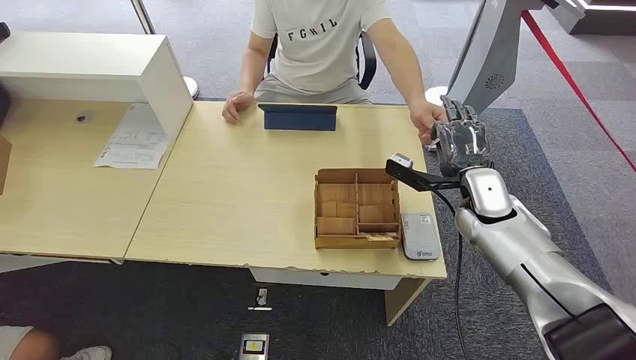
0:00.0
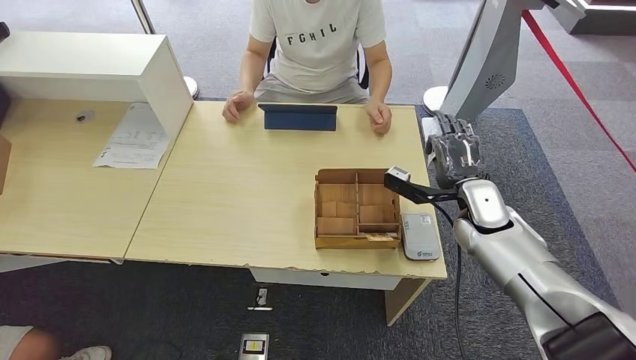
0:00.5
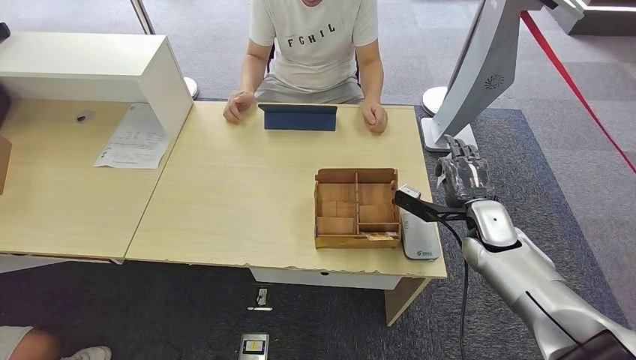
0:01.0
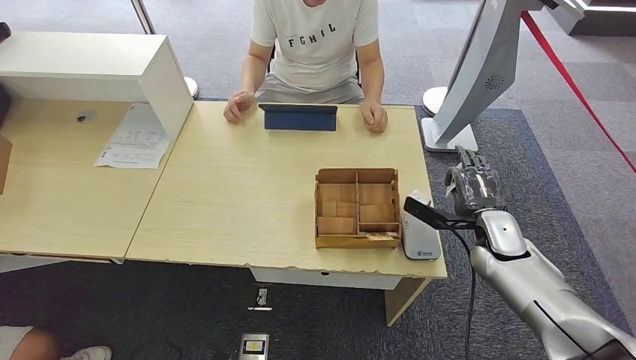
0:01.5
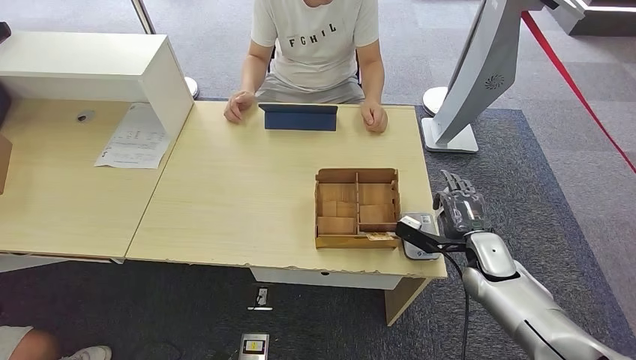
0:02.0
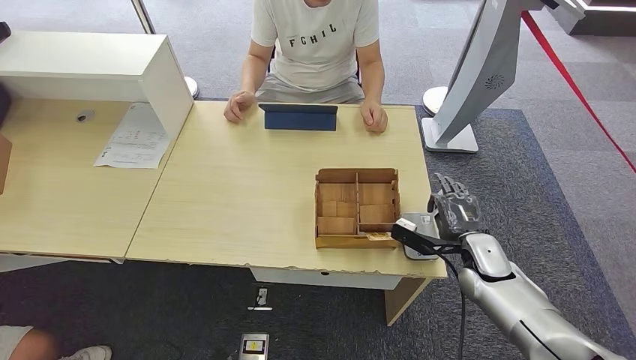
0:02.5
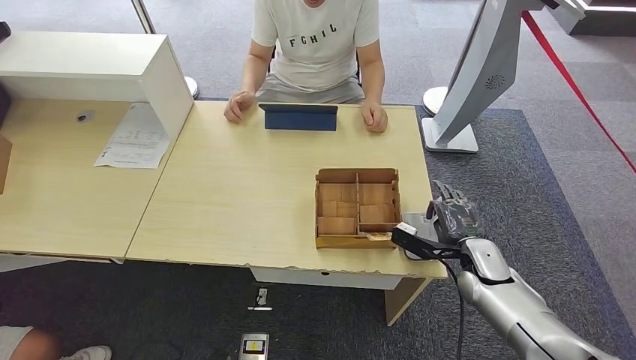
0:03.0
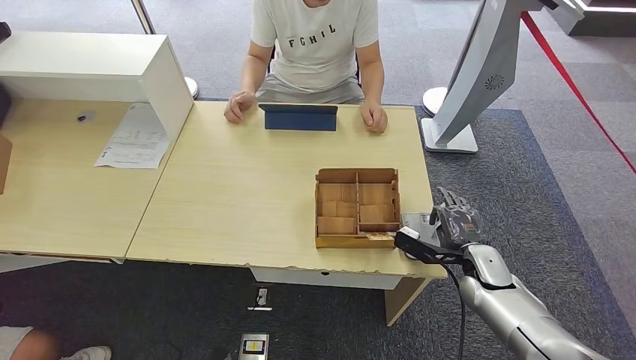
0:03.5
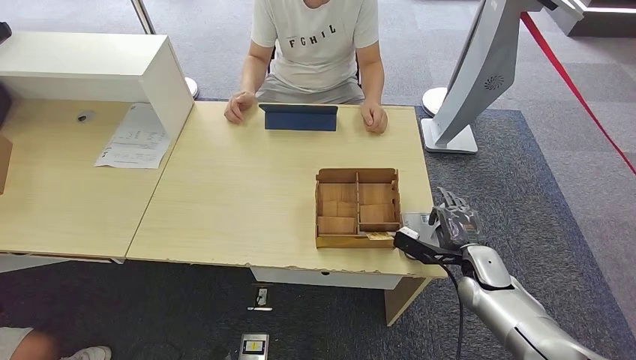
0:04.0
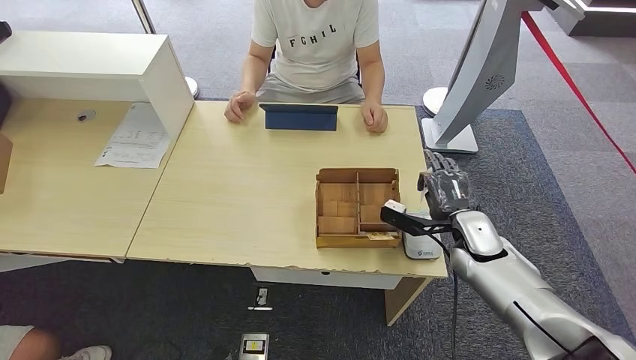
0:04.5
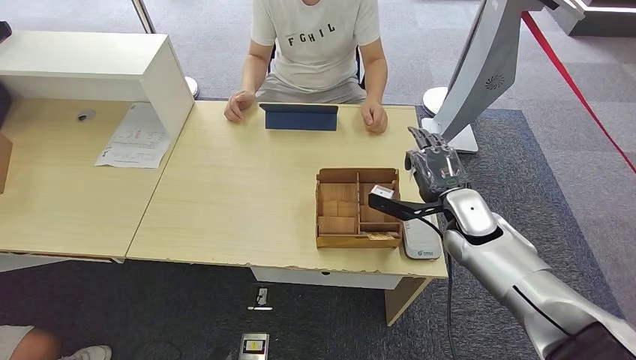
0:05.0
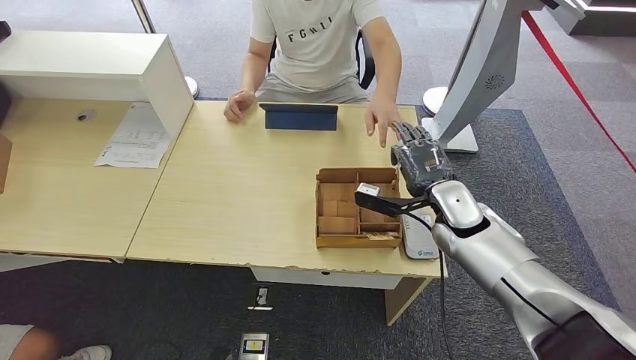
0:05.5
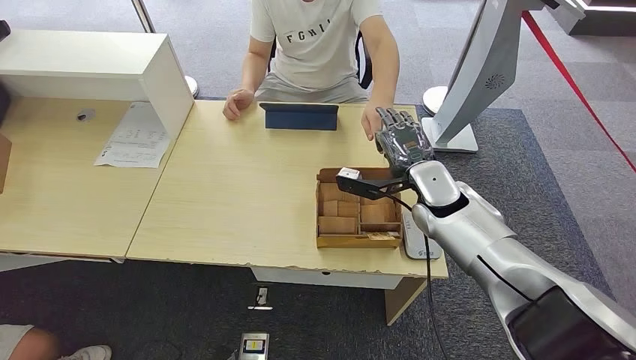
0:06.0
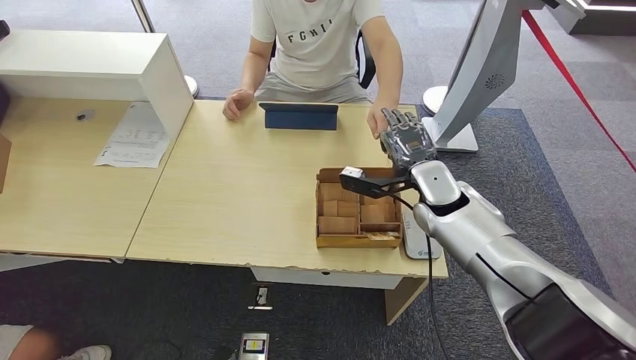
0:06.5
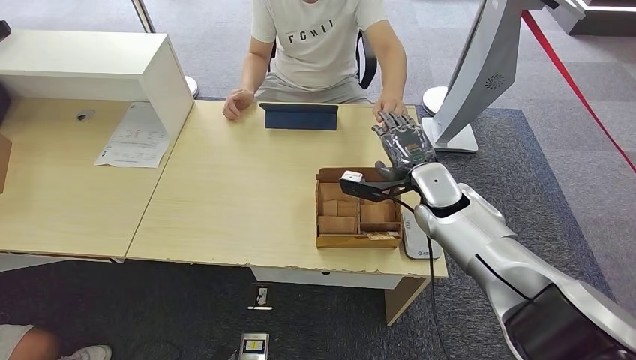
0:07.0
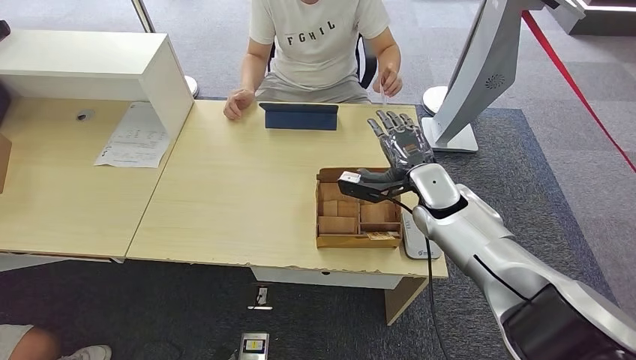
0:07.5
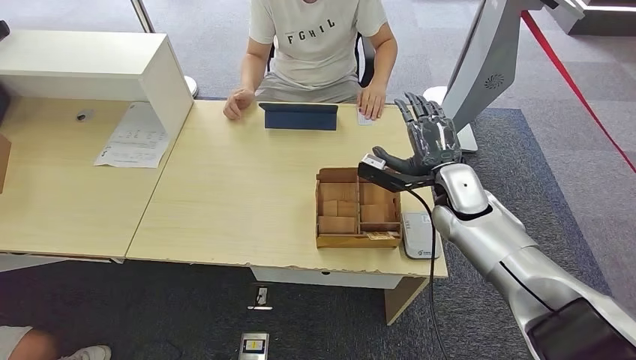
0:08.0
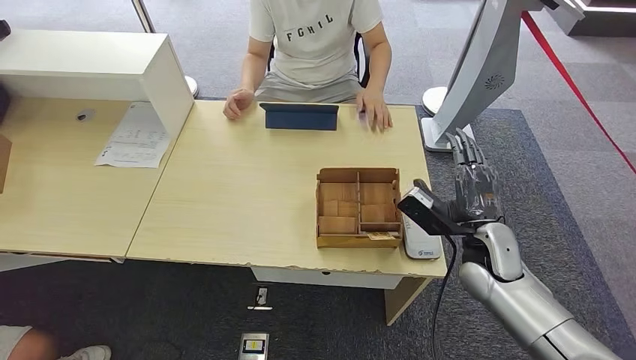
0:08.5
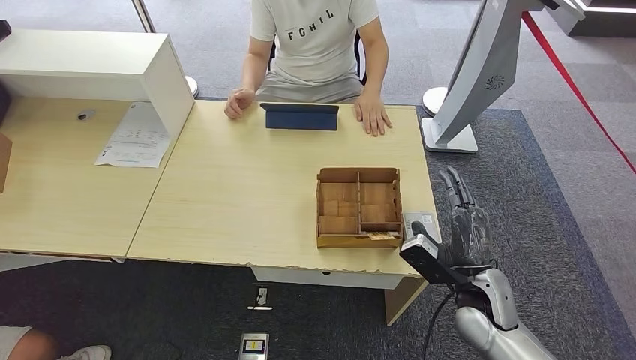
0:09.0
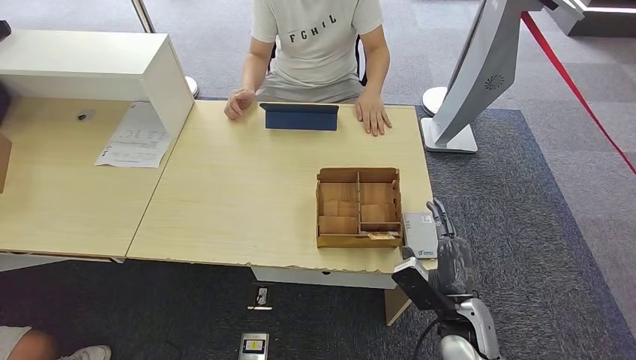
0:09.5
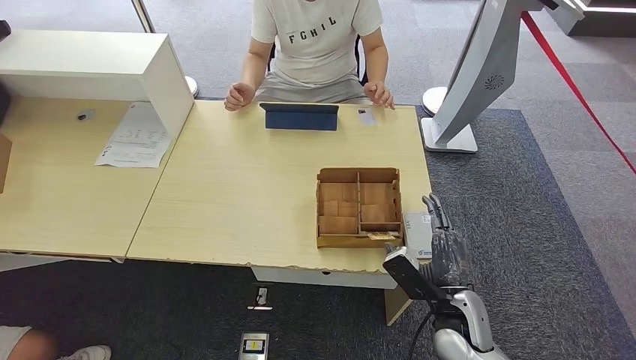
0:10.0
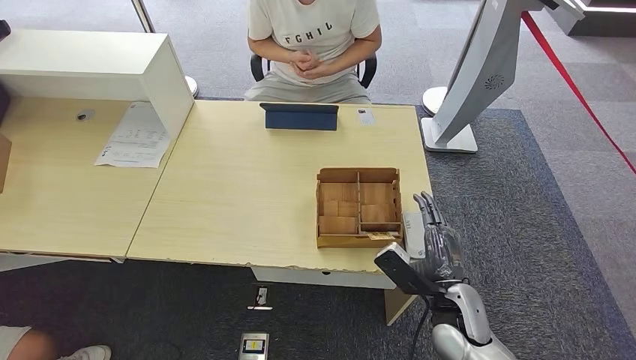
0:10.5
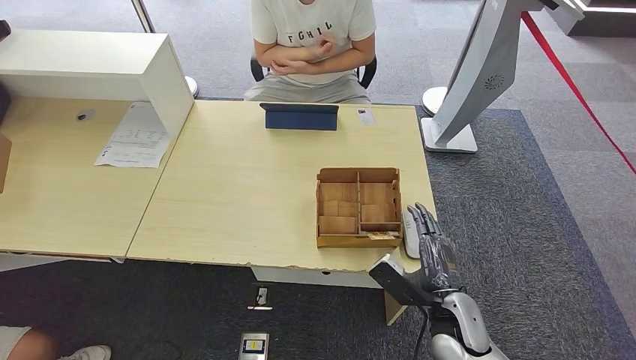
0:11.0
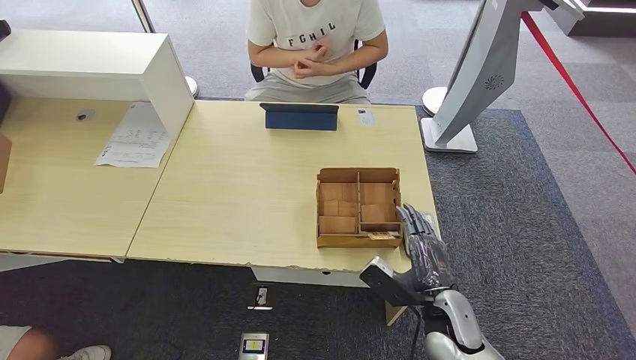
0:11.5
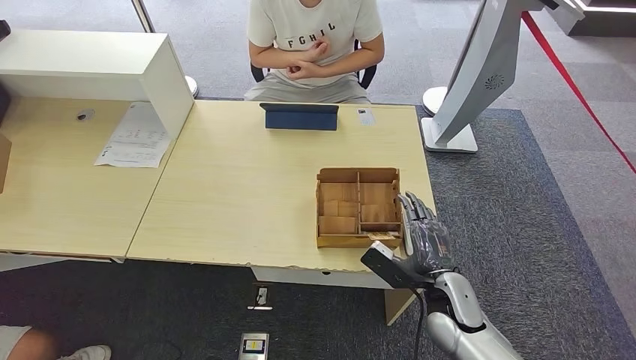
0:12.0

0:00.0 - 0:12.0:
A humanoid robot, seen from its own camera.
Step, 0:00.0 - 0:02.0: Take the ID card from the person's hand.
Step, 0:02.5 - 0:05.0: Place the ID card on the card reader.
Step, 0:05.5 - 0:08.0: Hand the ID card to the person.
0:02.0 - 0:04.0: The hands make only small movements.
0:04.0 - 0:06.0: The right hand heads upward, to the left and forward, covering about 20 cm.
0:06.0 - 0:08.0: The hands stay close to where they were, moving slightly.
0:08.0 - 0:10.0: The right hand heads backward and downward, covering approximately 25 cm.
0:10.0 - 0:12.0: The hands make only small movements.

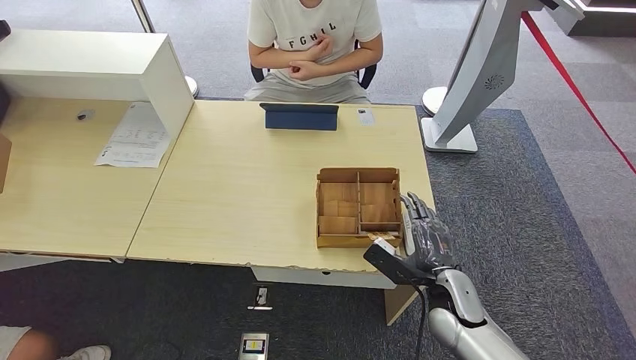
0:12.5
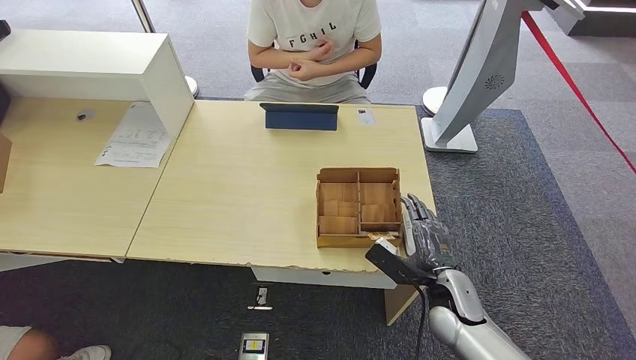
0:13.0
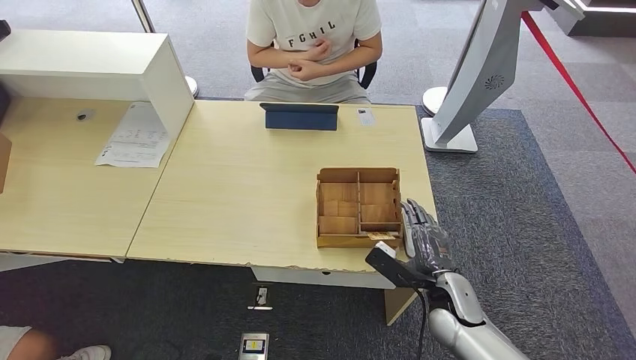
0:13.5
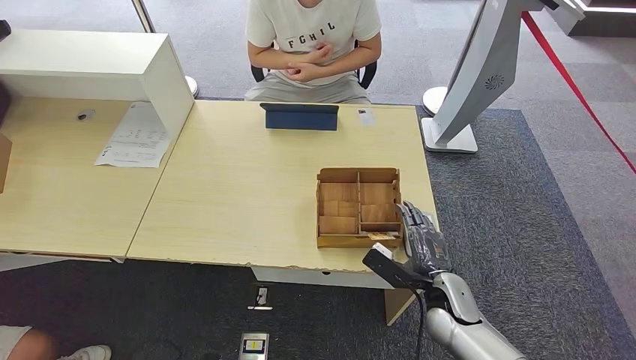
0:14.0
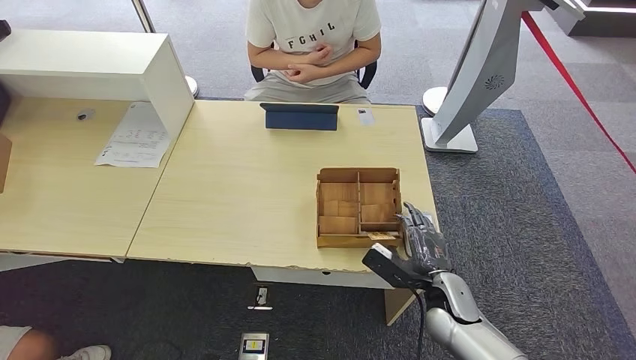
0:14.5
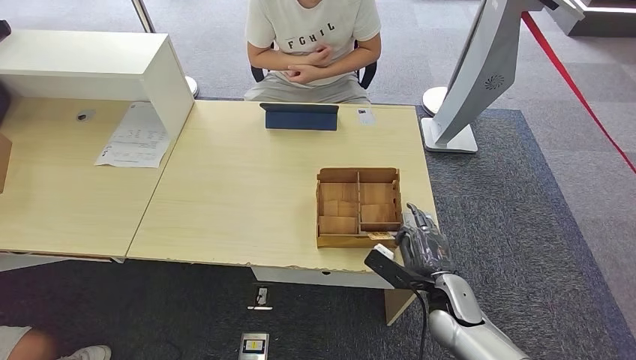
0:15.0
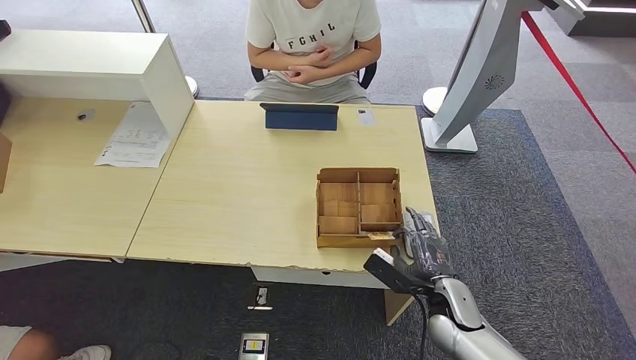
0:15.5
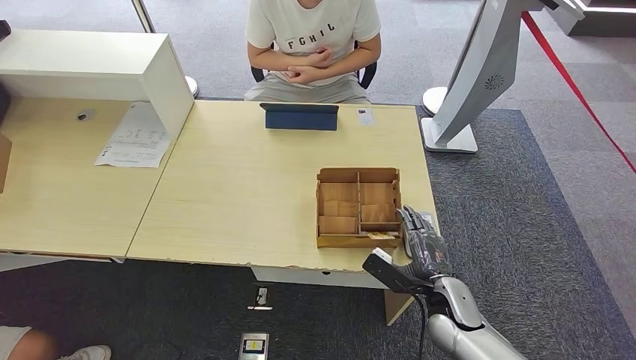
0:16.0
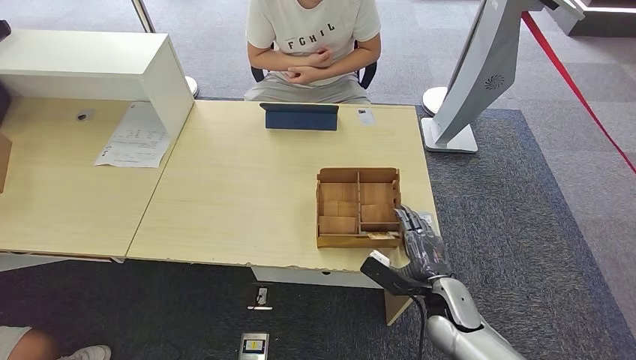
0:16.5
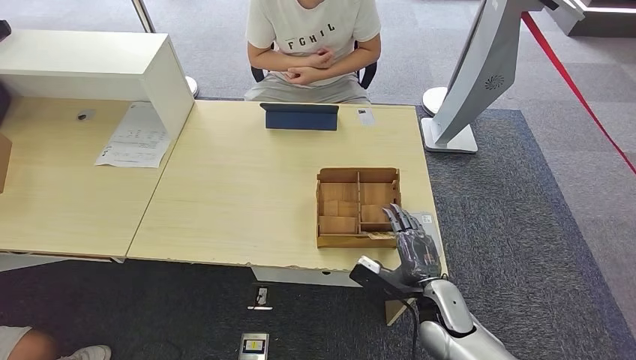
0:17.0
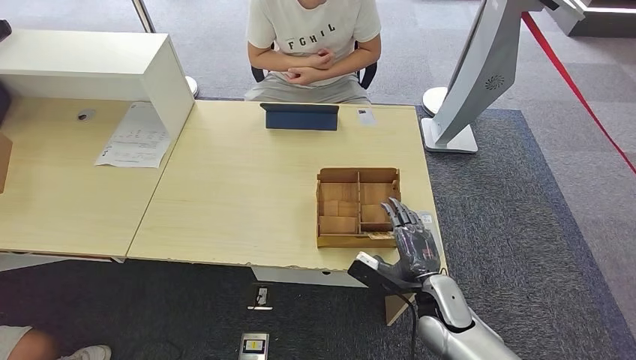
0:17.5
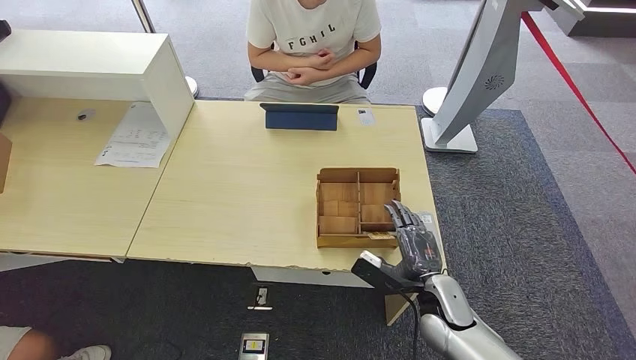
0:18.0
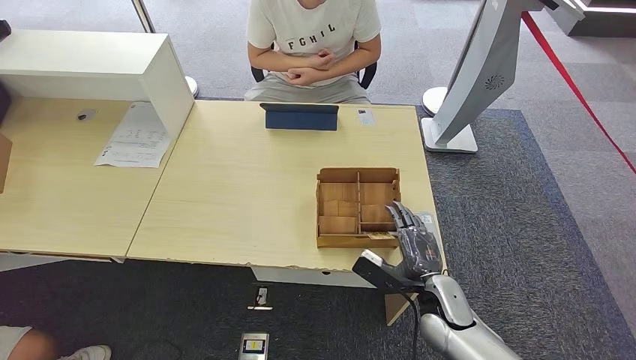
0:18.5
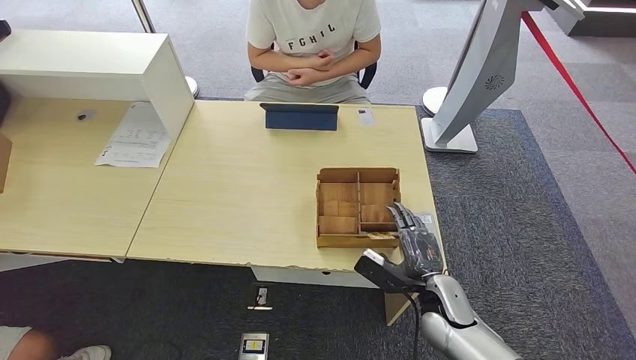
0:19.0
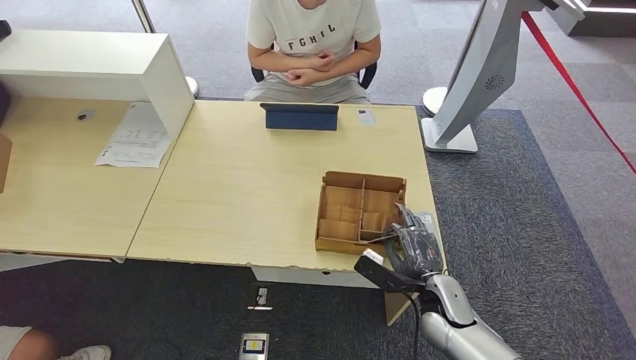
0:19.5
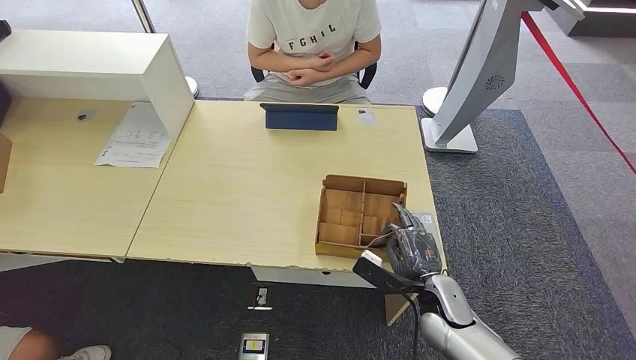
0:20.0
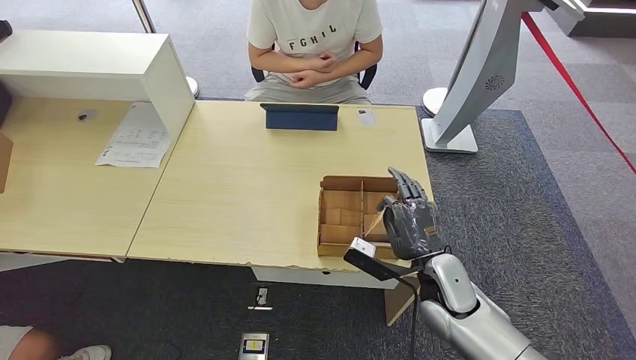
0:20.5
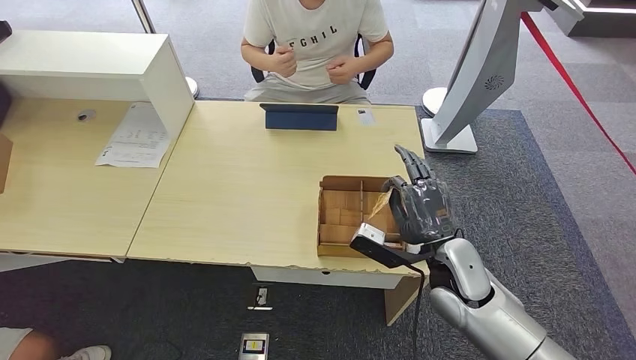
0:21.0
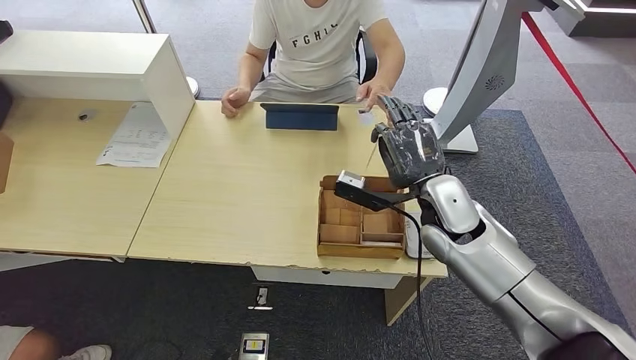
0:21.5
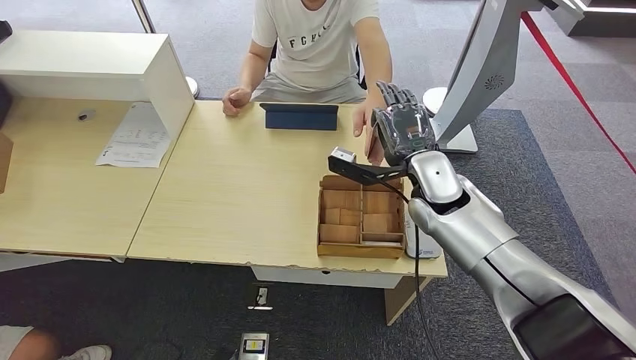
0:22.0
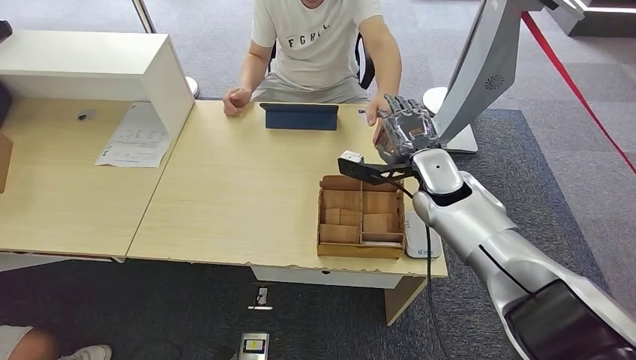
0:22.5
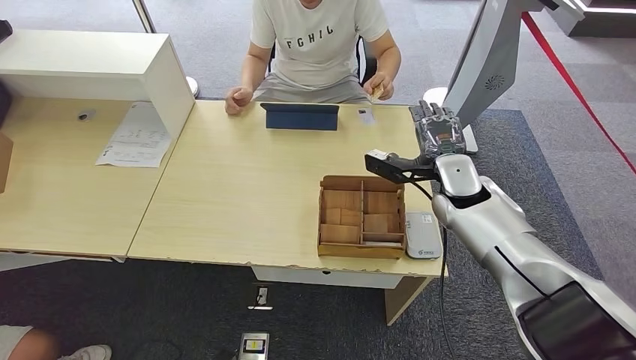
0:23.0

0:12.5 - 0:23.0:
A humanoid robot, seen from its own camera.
Step, 0:12.5 - 0:20.5: Pick up the room key from the key card box.
Step, 0:21.0 - 0:23.0: Hand the room key to the person.
0:12.5 - 0:14.5: The hands stay close to where they were, moving slightly.
0:14.5 - 0:16.5: The two hands keep their place.
0:16.5 - 0:19.0: The hands make only small movements.
0:19.0 - 0:21.0: The right hand goes about 10 cm upward.
0:21.0 - 0:23.0: The right hand moves forward and upward, roughly 15 cm.
